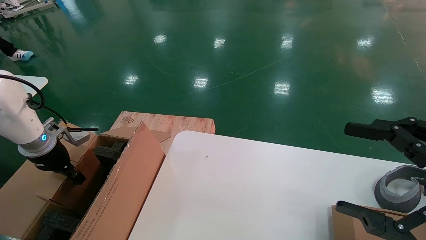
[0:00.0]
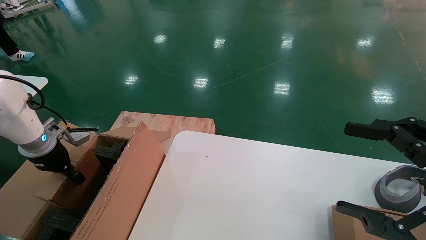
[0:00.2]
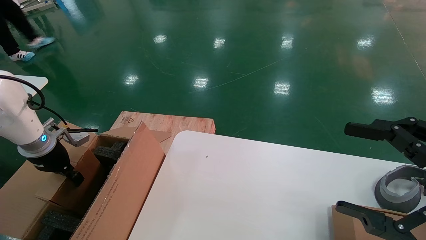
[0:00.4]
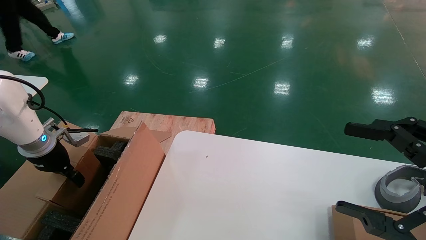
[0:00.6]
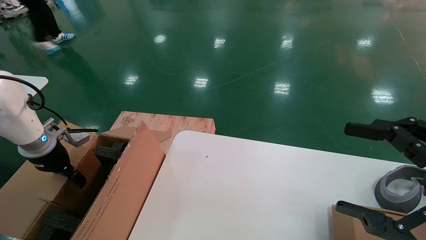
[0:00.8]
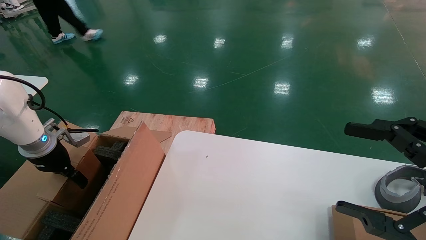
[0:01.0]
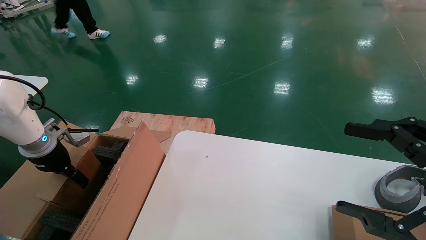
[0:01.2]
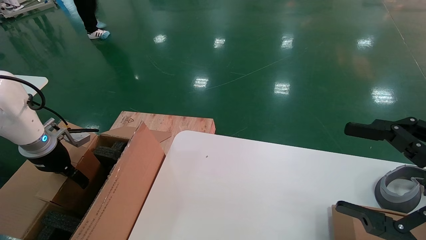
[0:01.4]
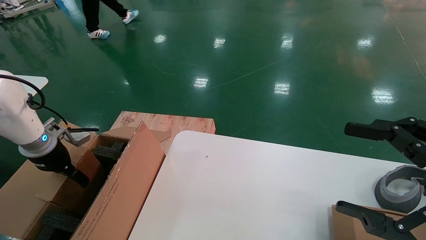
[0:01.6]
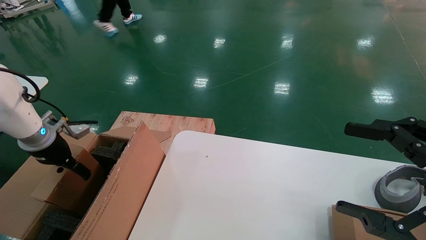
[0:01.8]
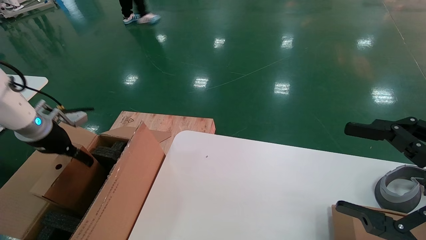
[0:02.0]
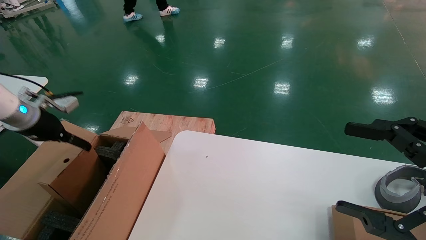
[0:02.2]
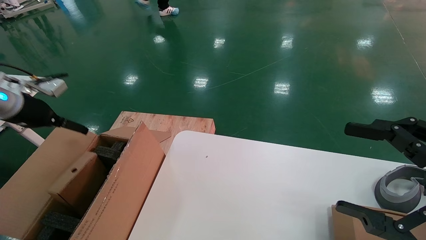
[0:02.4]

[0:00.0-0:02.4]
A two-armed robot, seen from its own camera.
Task of the whole recording: put the box on the table into the big box.
Step, 0:00.0 to 0:02.0: Place the paper box in the another big box.
0:00.0 to 0:01.2: The left gripper opens its fingers.
0:01.2 to 0:02.4: The left gripper moves upward, roughly 10 cm.
